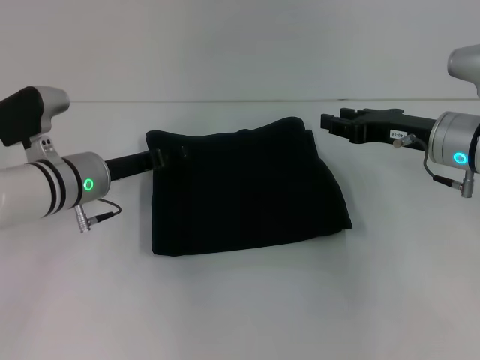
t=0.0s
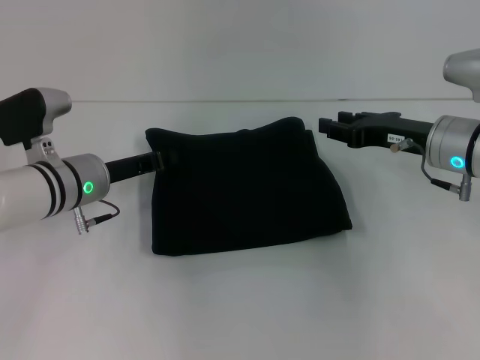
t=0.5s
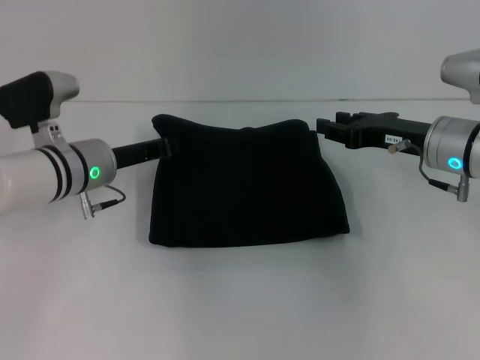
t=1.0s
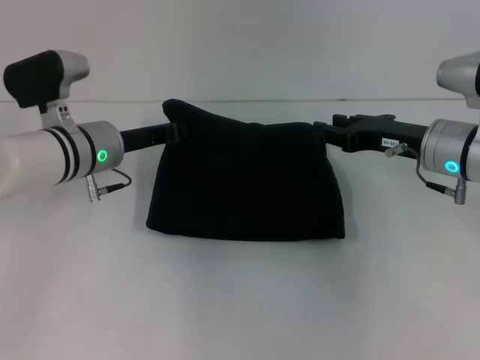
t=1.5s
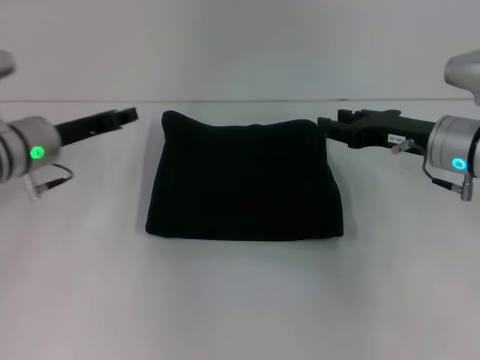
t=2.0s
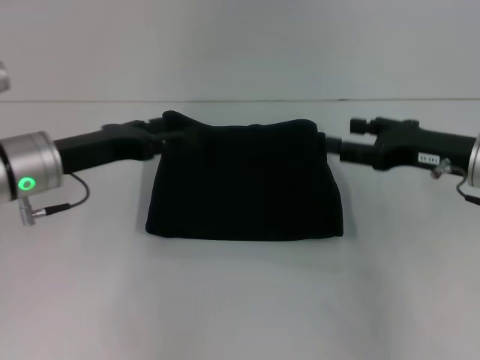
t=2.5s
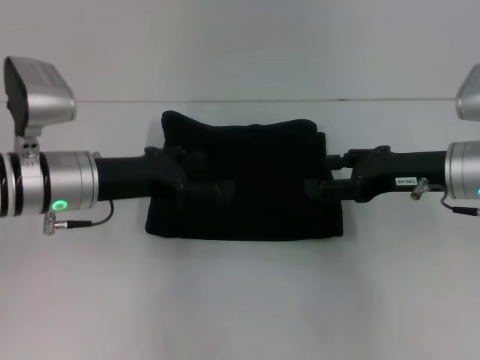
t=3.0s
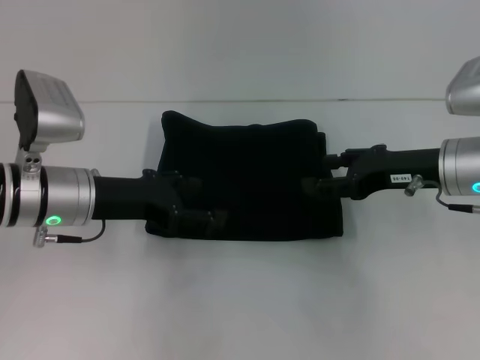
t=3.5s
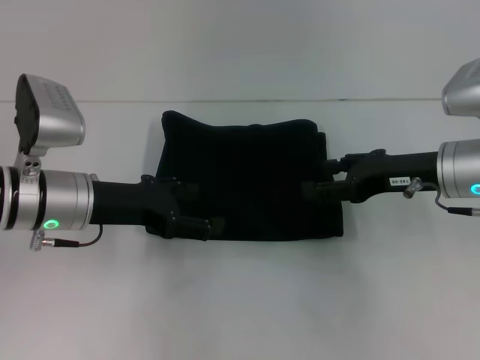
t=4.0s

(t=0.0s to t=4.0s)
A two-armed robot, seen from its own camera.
t=0.0s - t=2.0s: The left gripper moves roughly 5 cm, and closes.
t=2.0s - t=4.0s: The left gripper heads backward, covering about 5 cm, and opens.

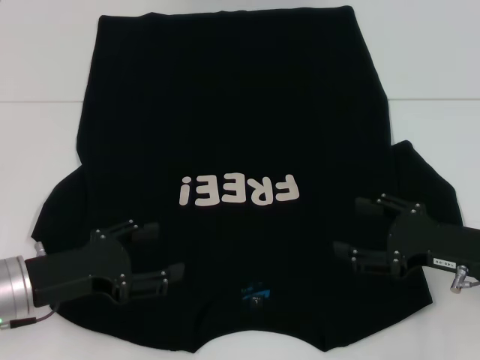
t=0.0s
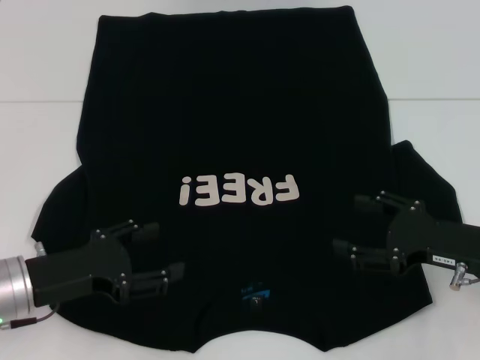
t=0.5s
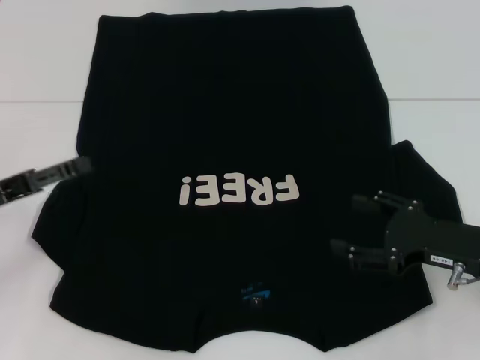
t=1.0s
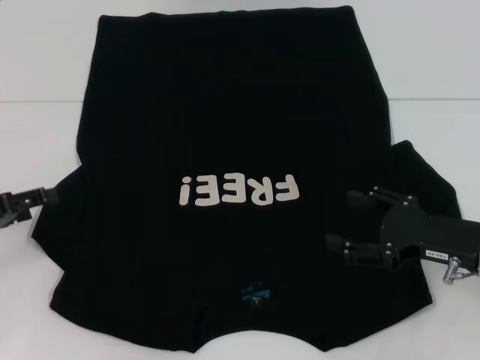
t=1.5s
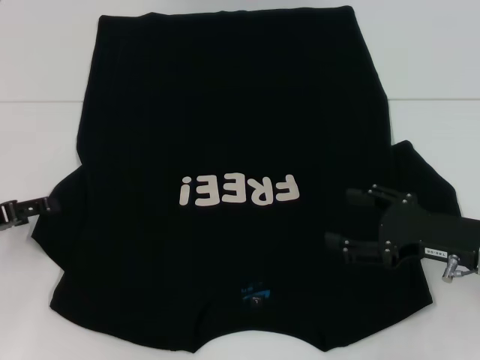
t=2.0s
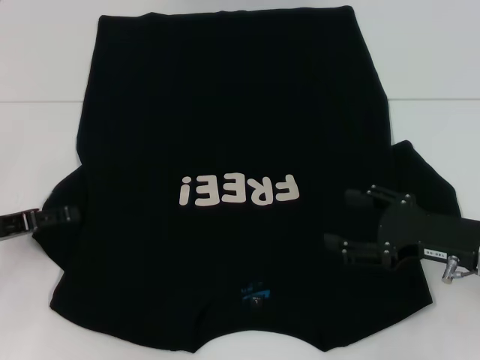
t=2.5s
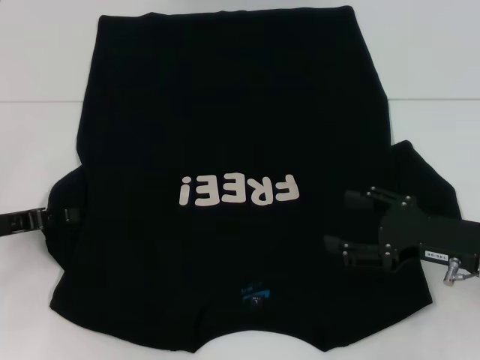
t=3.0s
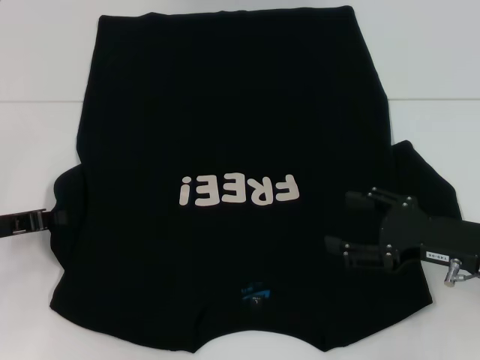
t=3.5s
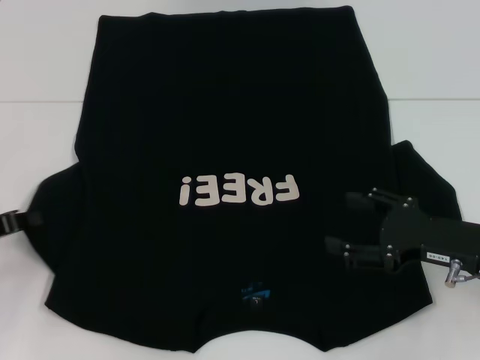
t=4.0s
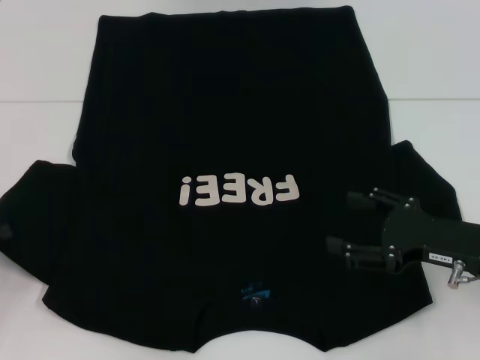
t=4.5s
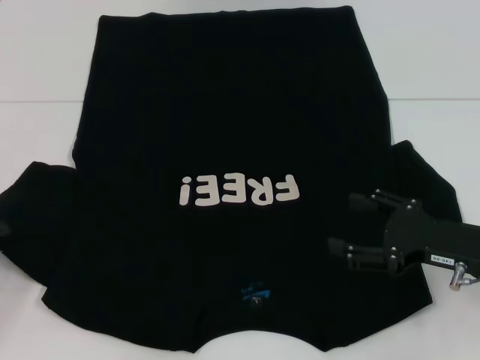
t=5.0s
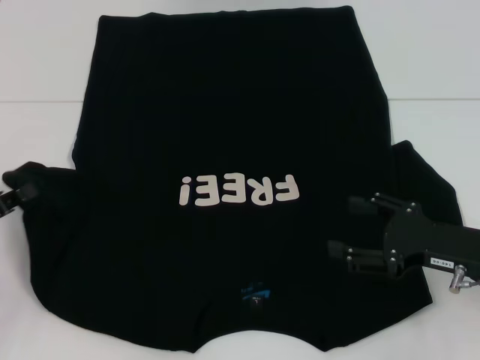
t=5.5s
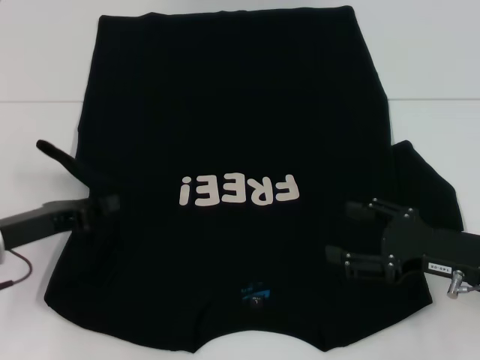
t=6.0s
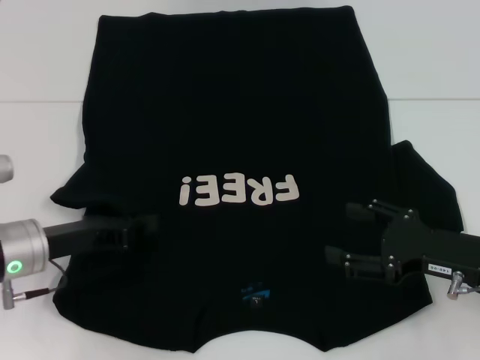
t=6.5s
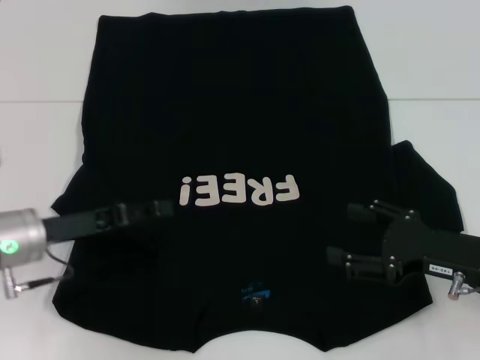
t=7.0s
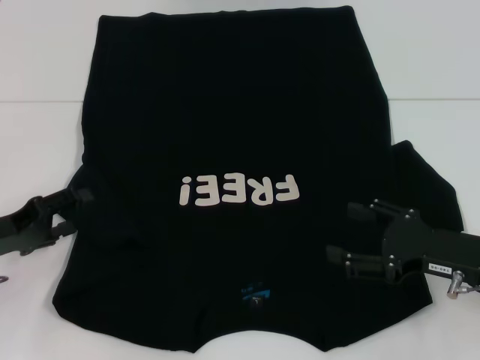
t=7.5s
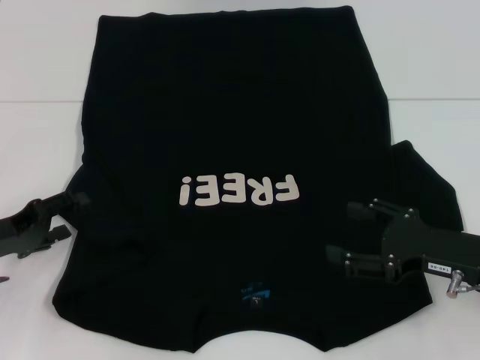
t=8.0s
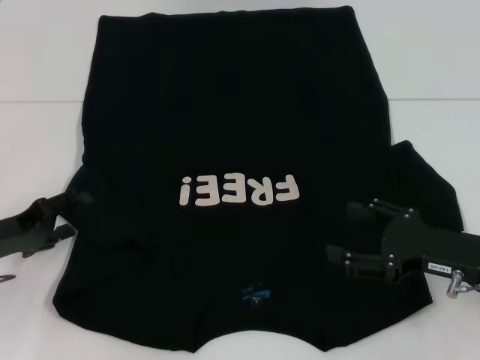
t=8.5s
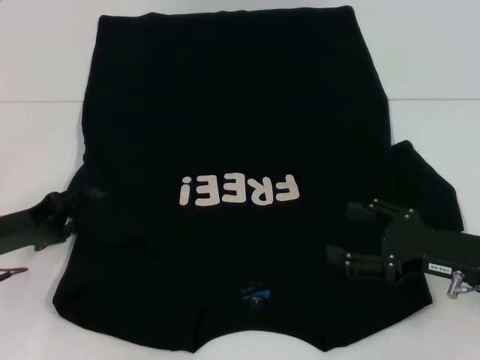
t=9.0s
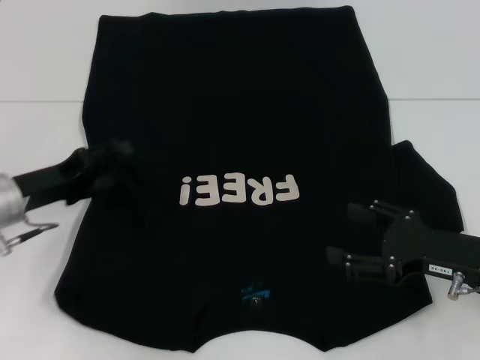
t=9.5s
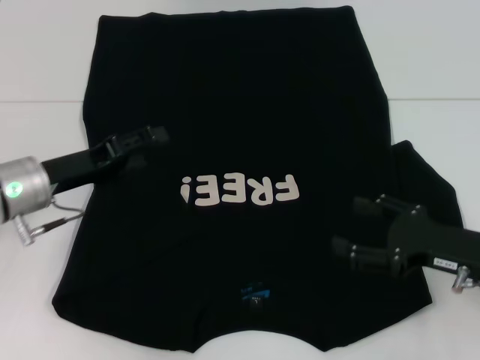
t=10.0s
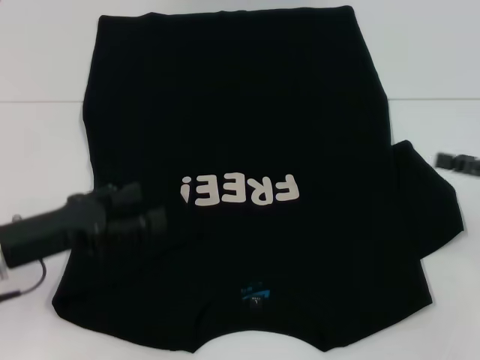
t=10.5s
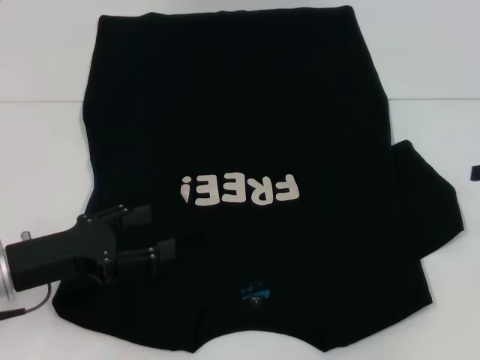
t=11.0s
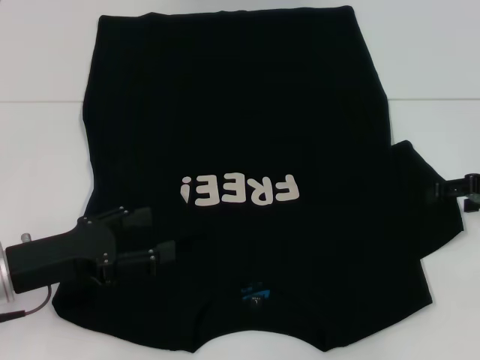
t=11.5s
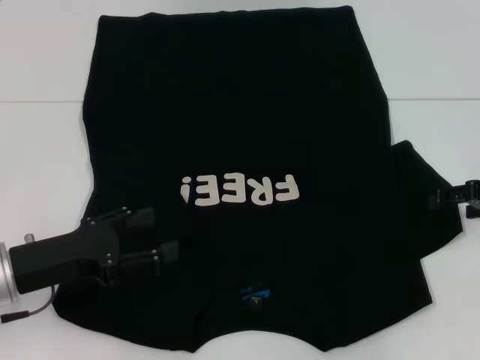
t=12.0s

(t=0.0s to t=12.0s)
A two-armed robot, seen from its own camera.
Step, t=0.0s - t=9.5s: Fold the bottom left sleeve with your left hand.
t=0.0s - t=2.0s: The left gripper shifts about 10 cm to the left.
t=2.0s - t=4.0s: The left gripper closes its fingers.
t=4.0s - t=6.0s: The left gripper moves to the right, approximately 5 cm.
t=6.0s - t=8.0s: The left gripper opens its fingers.
t=8.0s - t=10.0s: The left gripper heads to the right and forward, covering approximately 10 cm.
t=10.0s - t=12.0s: The right gripper moves forward, to the right and upward, roughly 10 cm. The left gripper is displaced backward by roughly 10 cm.

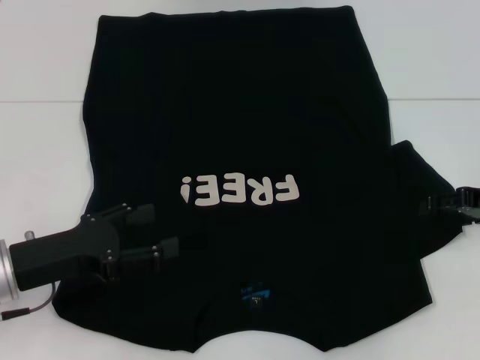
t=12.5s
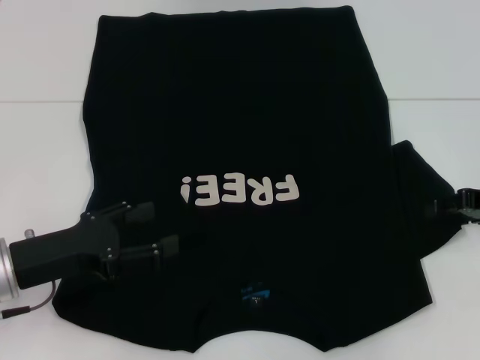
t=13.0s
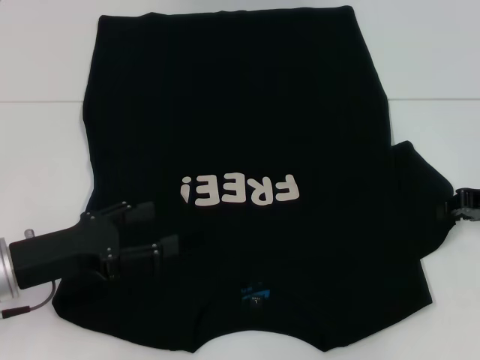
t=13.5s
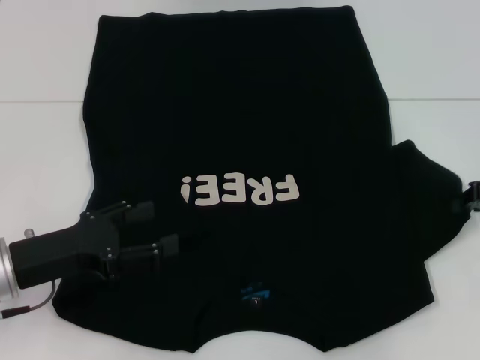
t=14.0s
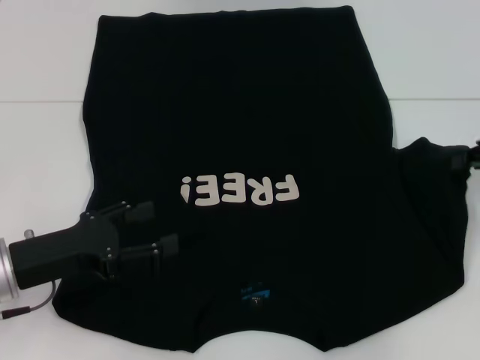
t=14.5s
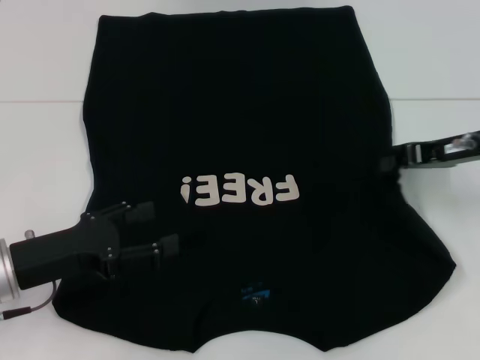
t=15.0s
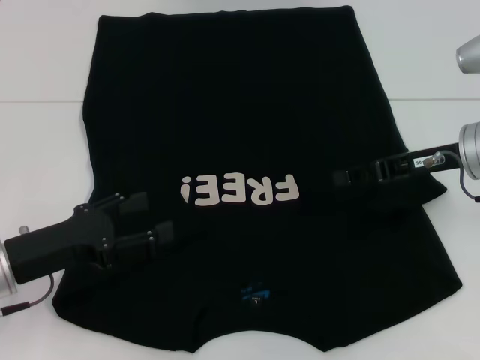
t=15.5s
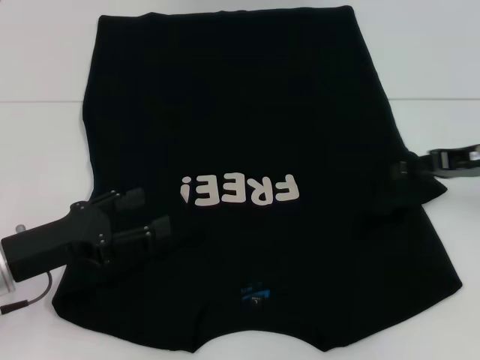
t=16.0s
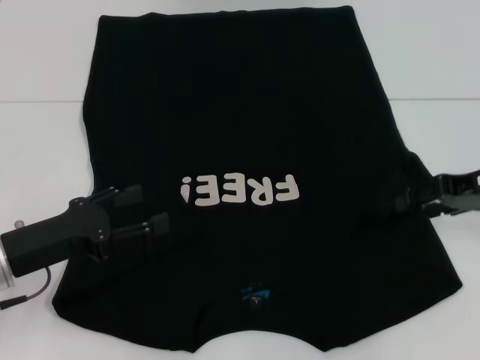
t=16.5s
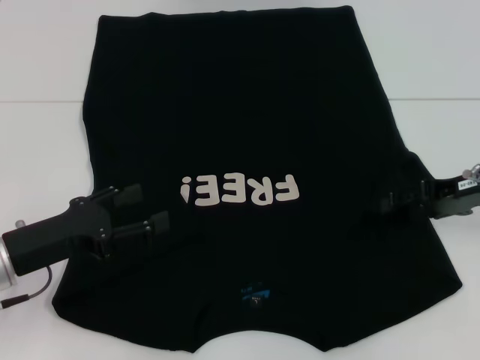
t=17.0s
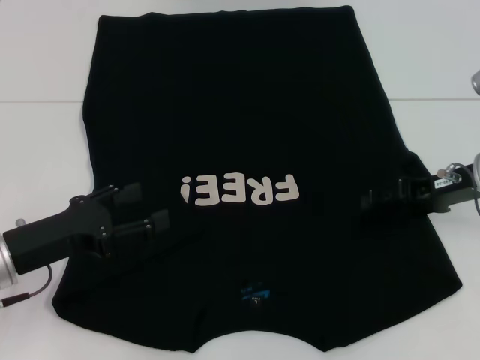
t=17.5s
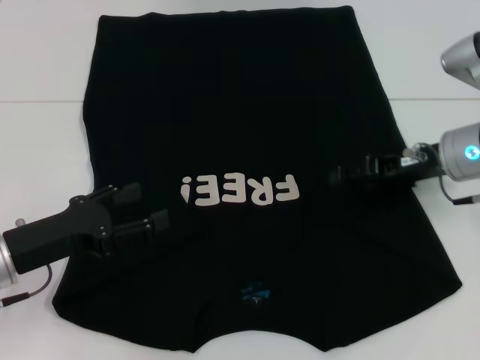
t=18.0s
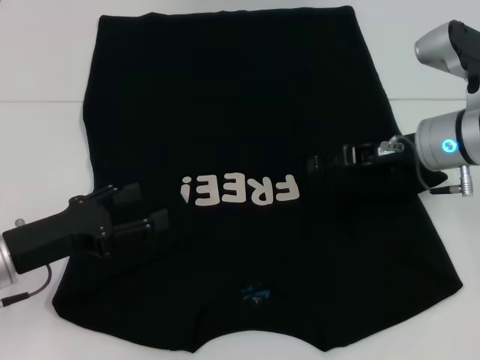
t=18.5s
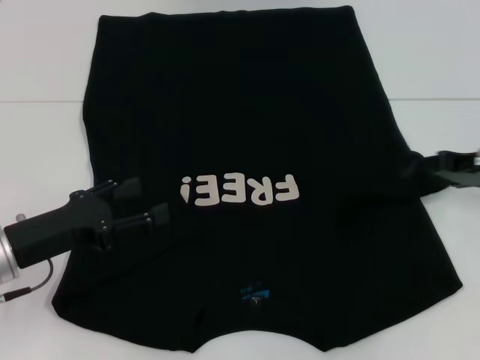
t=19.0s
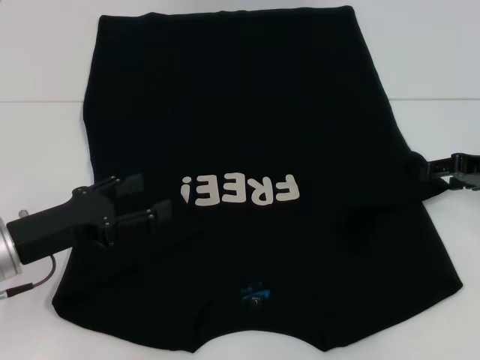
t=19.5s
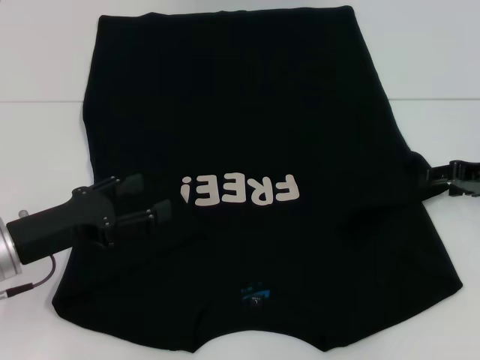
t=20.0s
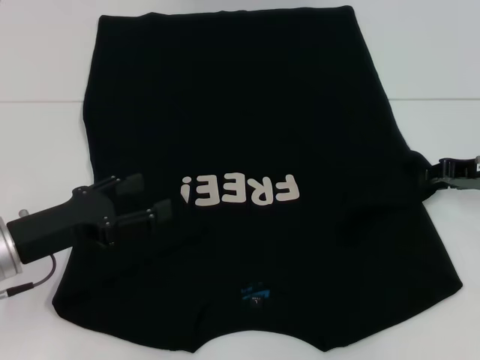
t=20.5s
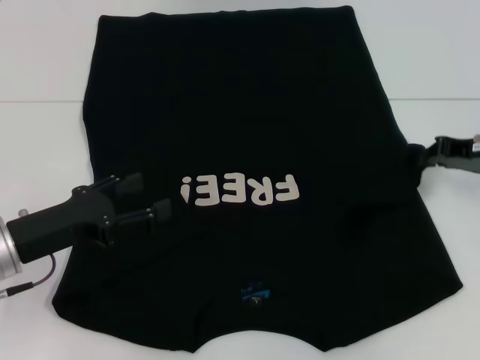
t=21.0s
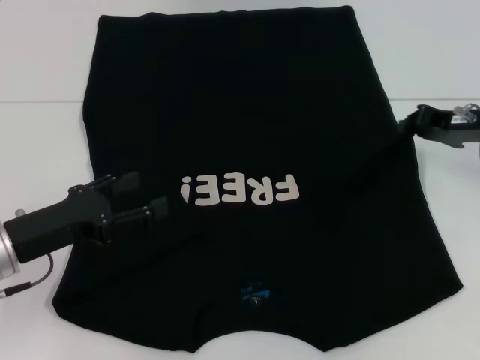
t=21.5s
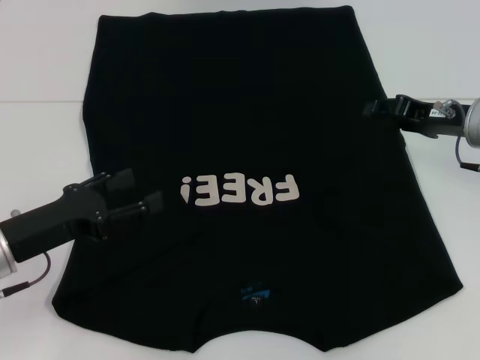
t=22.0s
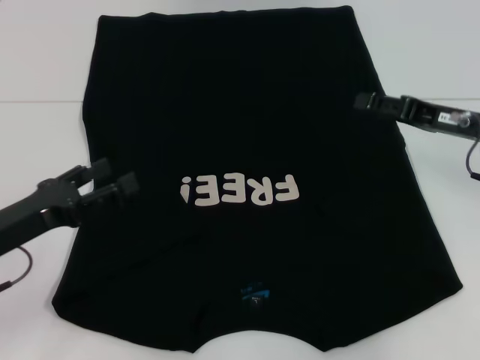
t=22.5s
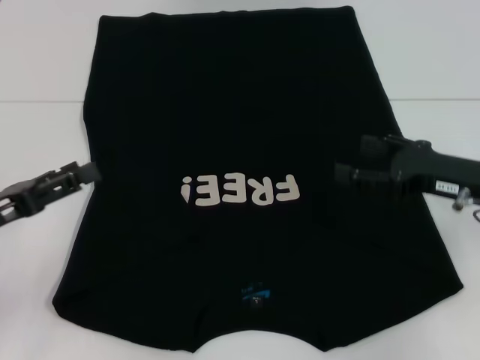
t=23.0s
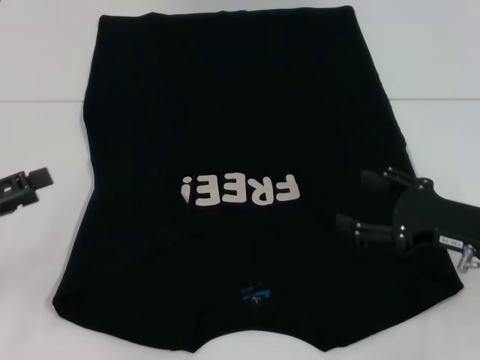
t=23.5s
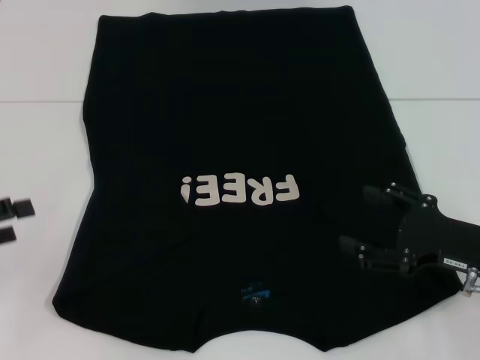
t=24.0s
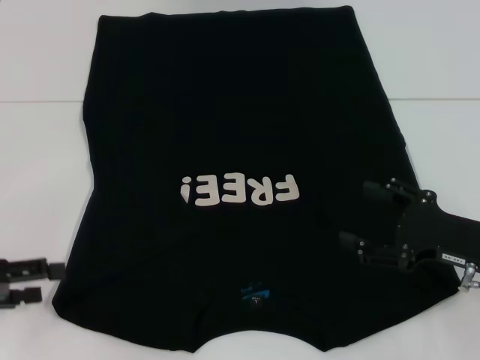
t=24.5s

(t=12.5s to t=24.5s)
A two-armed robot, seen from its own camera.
Step, t=12.5s - t=21.5s: Fold the bottom right sleeve with your right hand.
t=12.5s - t=14.5s: The right gripper closes up.
t=14.5s - t=16.5s: The right gripper opens up.
t=16.5s - t=18.5s: The right gripper moves to the left, about 10 cm.
t=18.5s - t=20.5s: The right gripper travels to the right by approximately 10 cm.
t=20.5s - t=22.5s: The right gripper closes and opens again.
t=22.5s - t=24.5s: The left gripper heads to the left, covering roughly 10 cm. The right gripper shifts approximately 10 cm backward and downward.
